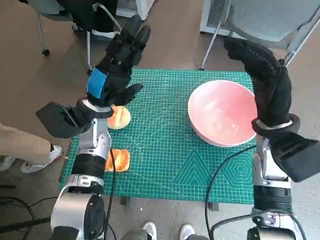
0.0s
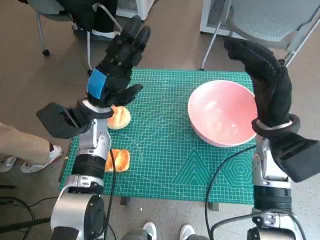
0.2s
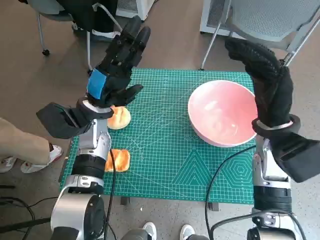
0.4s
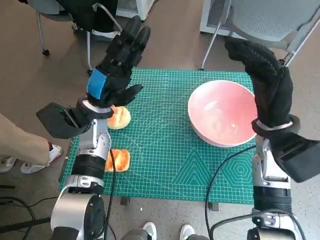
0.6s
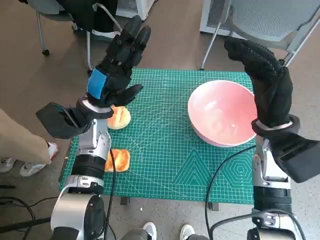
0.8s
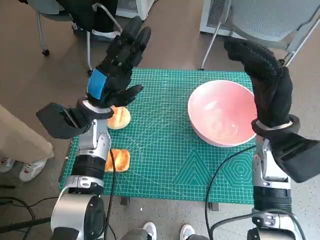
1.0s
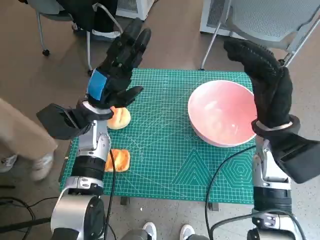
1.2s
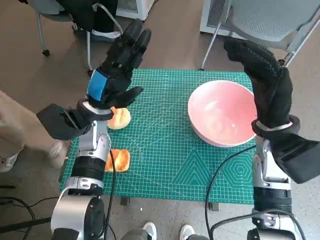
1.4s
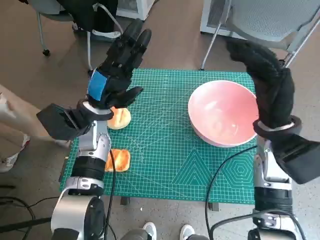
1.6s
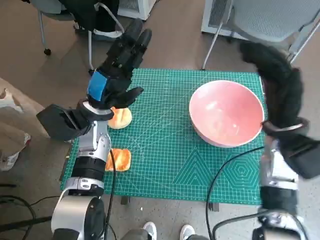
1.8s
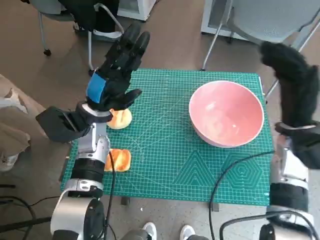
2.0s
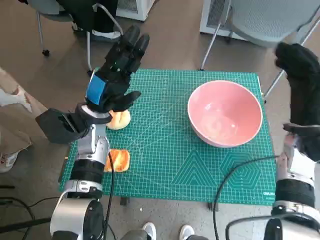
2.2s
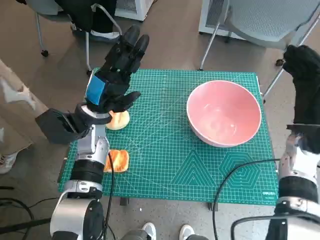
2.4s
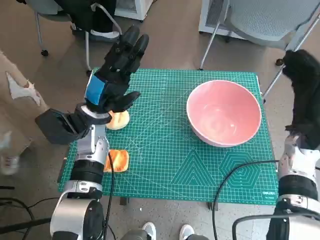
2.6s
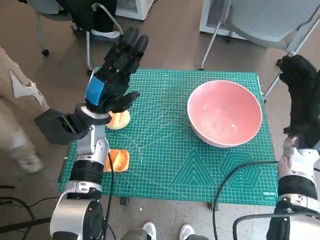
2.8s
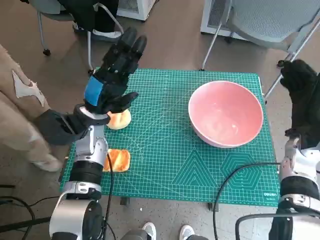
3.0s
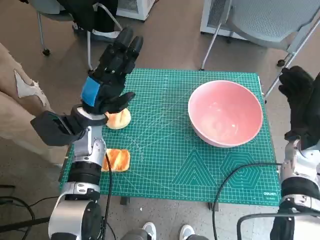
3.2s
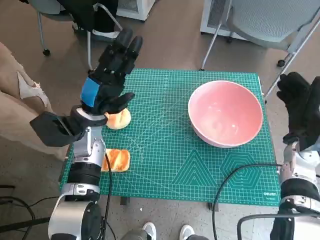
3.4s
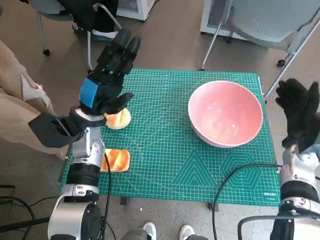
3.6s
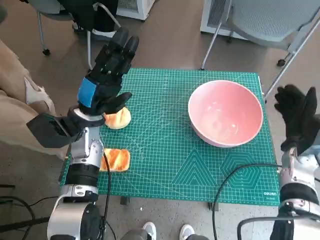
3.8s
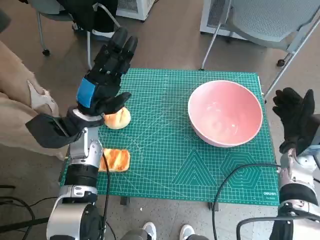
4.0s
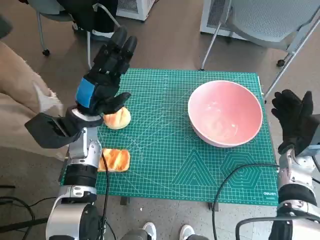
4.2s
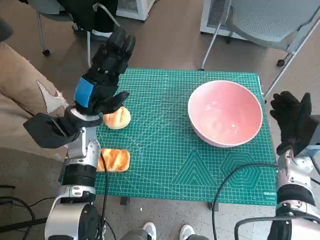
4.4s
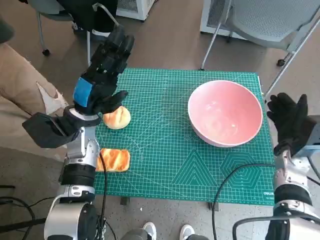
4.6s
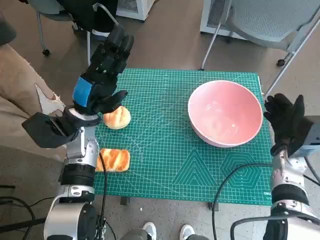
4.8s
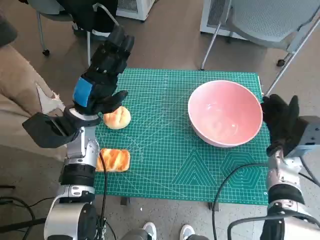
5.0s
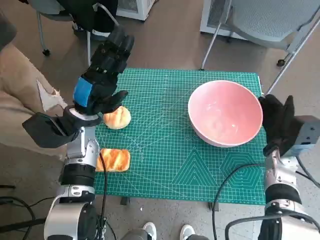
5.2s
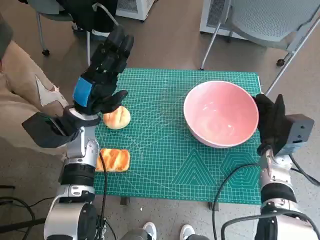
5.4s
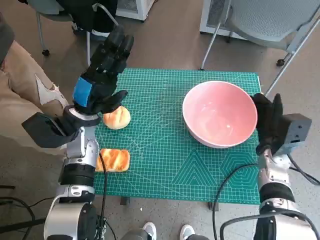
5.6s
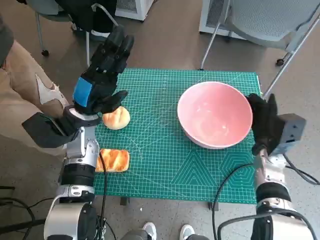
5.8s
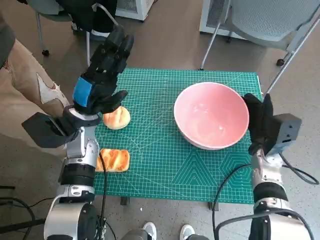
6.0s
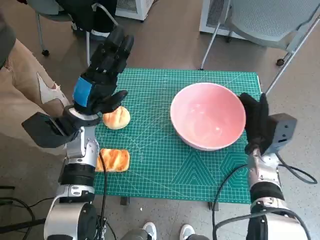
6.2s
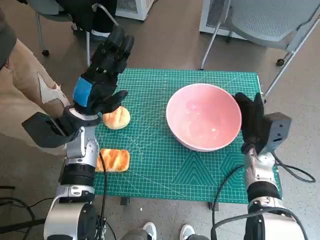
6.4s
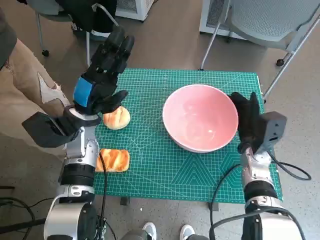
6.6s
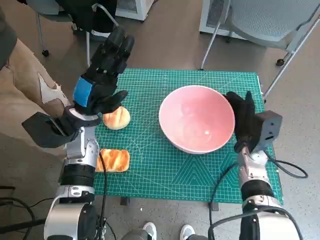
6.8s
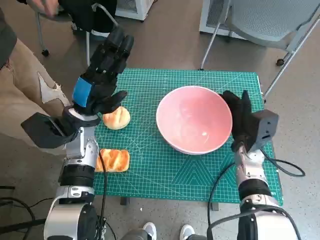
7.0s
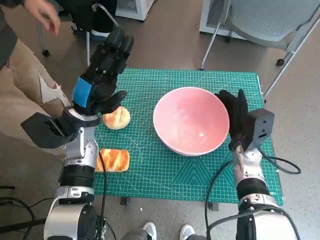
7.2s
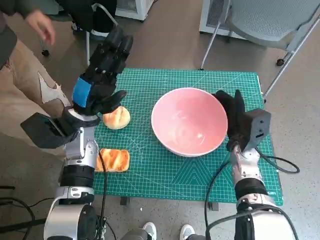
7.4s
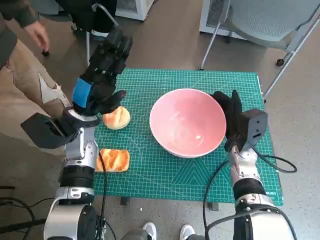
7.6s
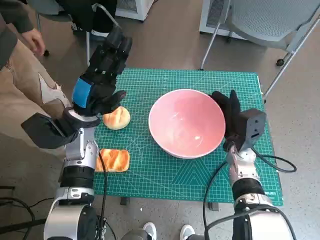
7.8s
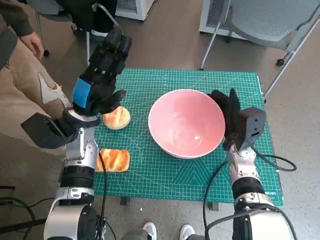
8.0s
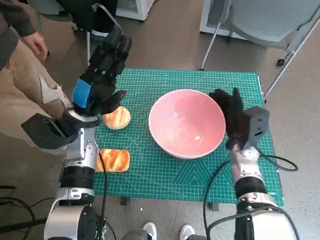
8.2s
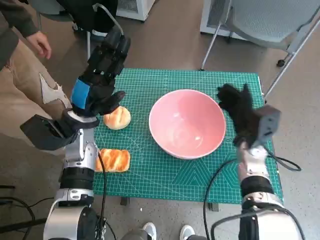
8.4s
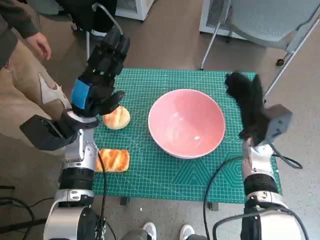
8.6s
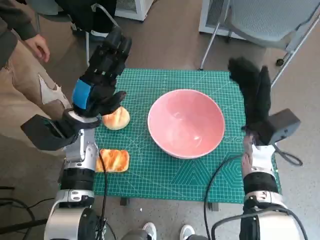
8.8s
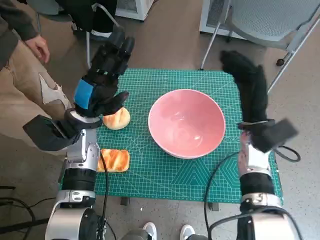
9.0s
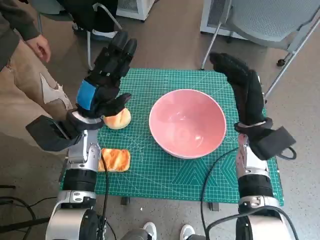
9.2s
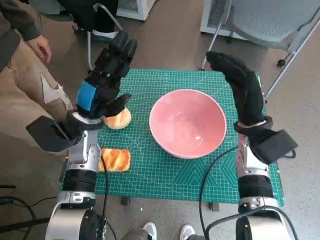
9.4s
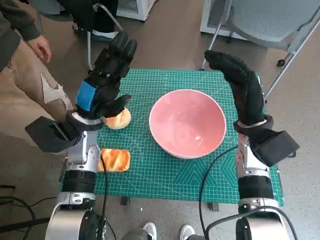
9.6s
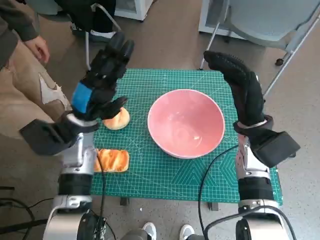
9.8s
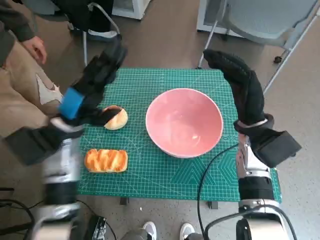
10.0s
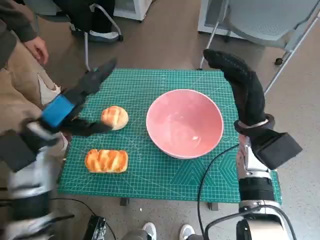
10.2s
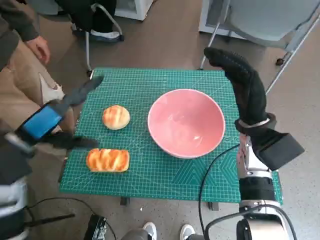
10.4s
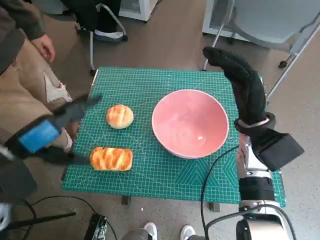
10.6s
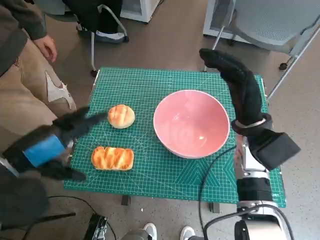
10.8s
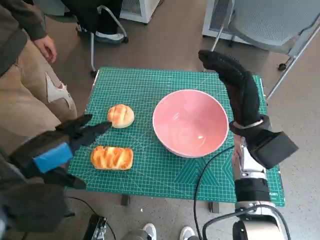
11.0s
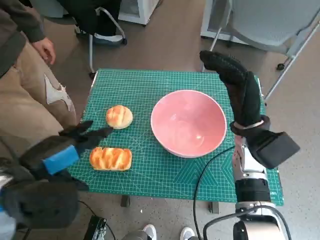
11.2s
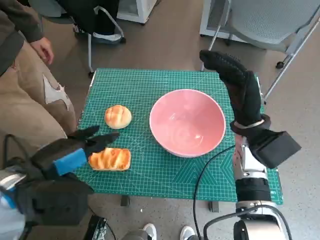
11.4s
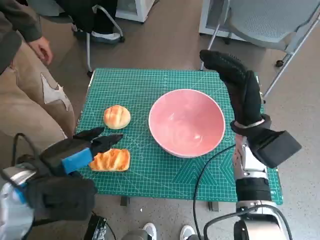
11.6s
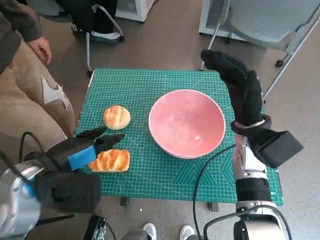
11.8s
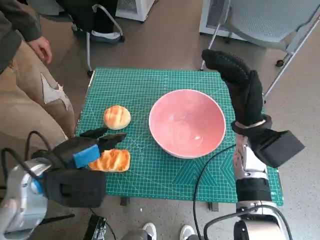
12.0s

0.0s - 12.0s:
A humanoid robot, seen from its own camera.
Step, 0.0s - 8.2s: Move the pink bowl to the center of table with right hand.
1.6s - 3.0s: The right hand travels to the right and downward by about 10 cm.
4.4s - 6.0s: The right hand travels to the left by about 5 cm.
6.0s - 7.6s: The right hand is displaced to the left by approximately 5 cm.
7.6s - 9.0s: The right hand moves upward, some 5 cm.
9.0s - 10.4s: The left hand moves backward and to the left, some 10 cm.
10.4s - 12.0s: The left hand goes roughly 5 cm to the right.

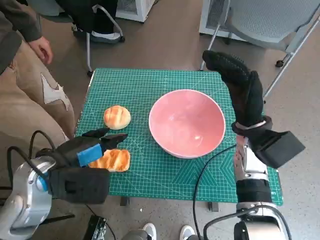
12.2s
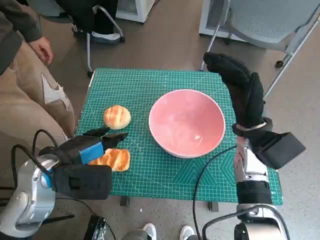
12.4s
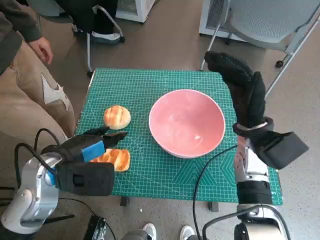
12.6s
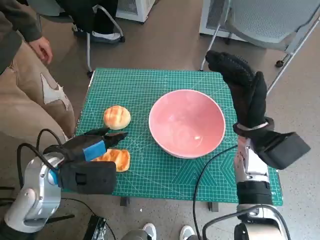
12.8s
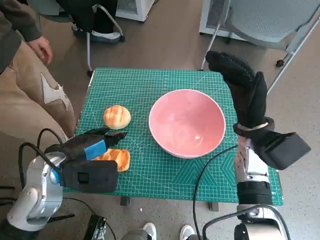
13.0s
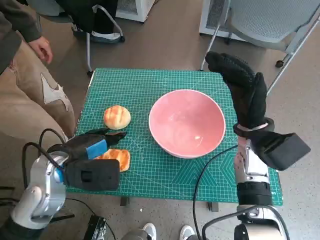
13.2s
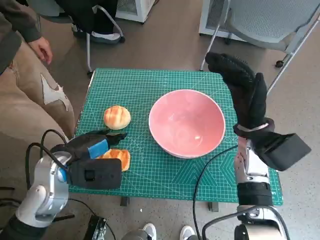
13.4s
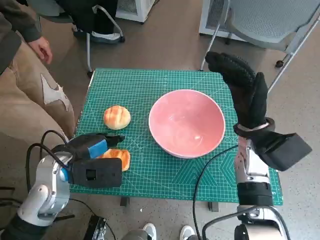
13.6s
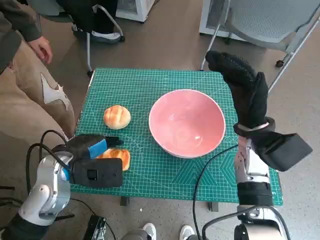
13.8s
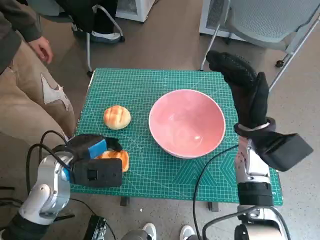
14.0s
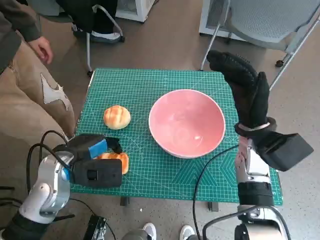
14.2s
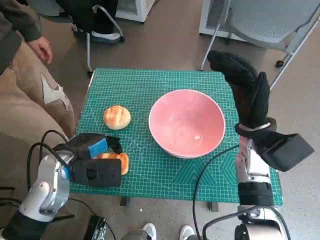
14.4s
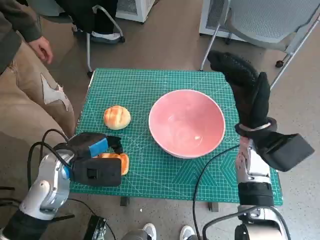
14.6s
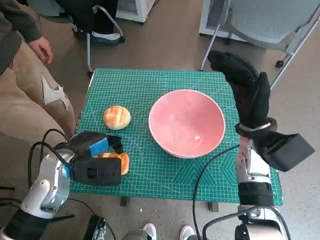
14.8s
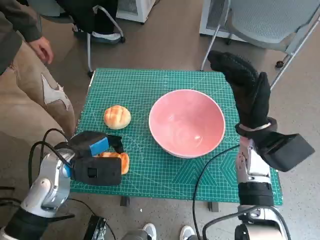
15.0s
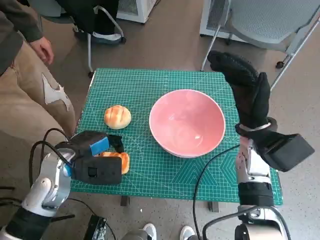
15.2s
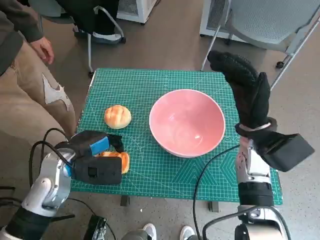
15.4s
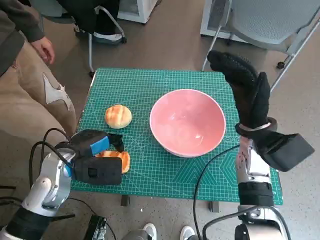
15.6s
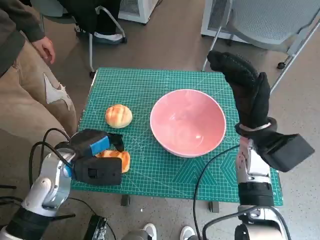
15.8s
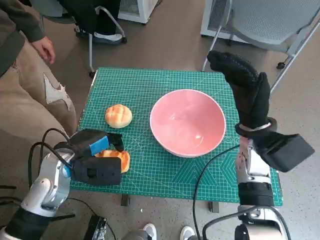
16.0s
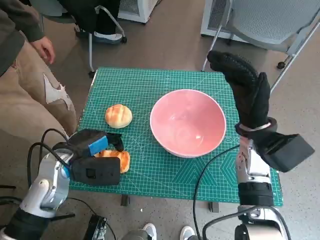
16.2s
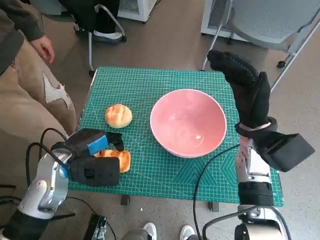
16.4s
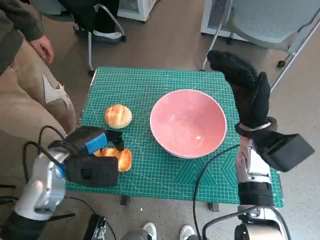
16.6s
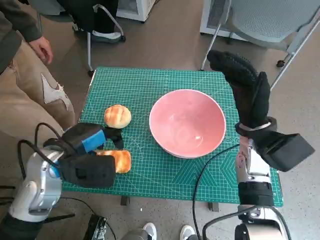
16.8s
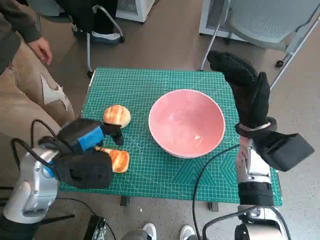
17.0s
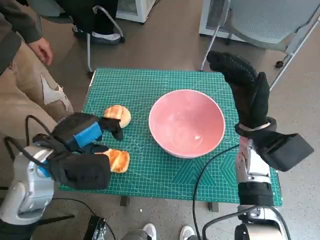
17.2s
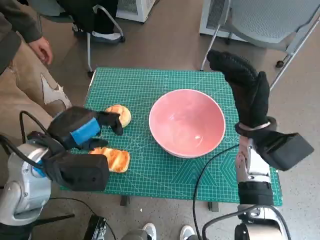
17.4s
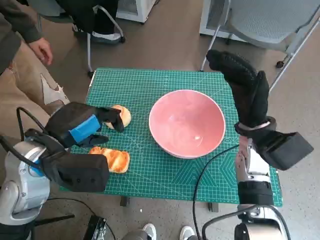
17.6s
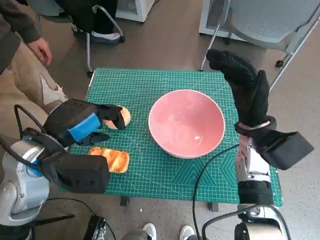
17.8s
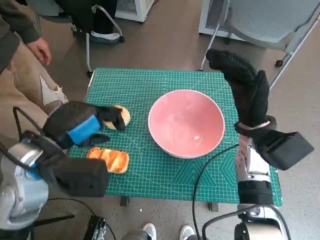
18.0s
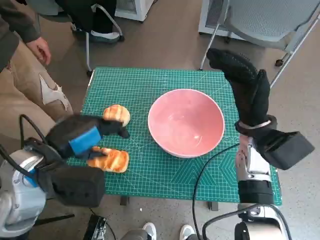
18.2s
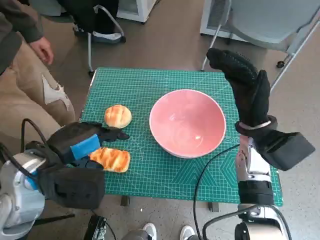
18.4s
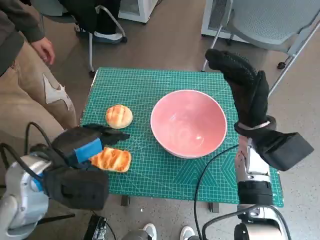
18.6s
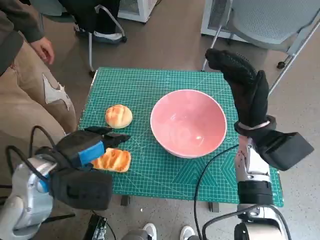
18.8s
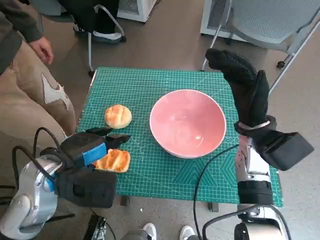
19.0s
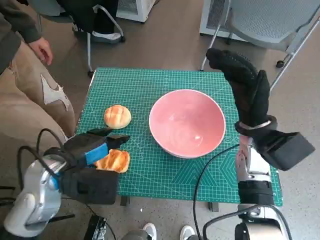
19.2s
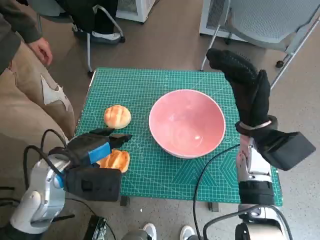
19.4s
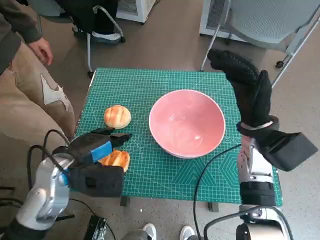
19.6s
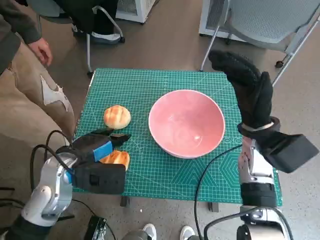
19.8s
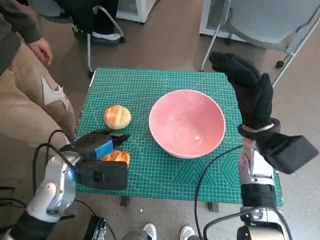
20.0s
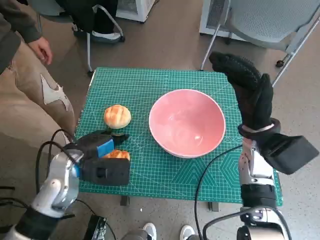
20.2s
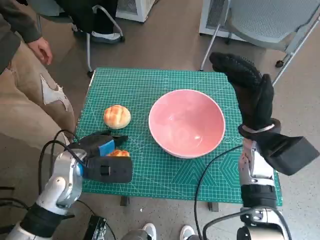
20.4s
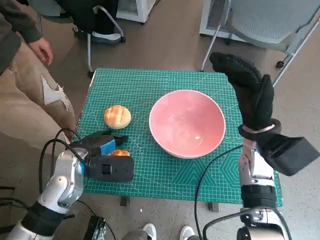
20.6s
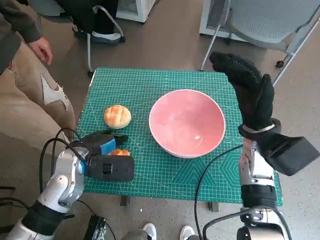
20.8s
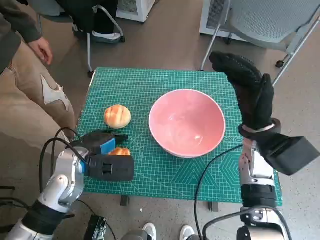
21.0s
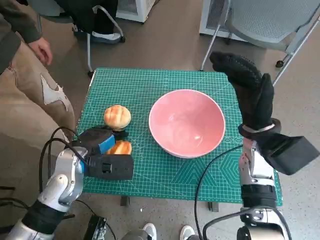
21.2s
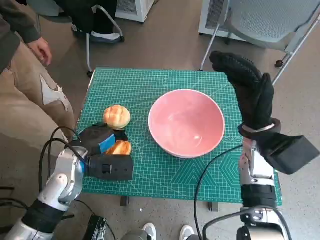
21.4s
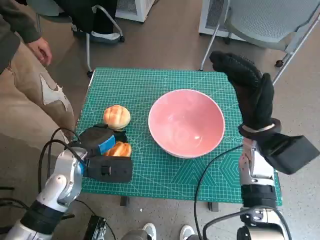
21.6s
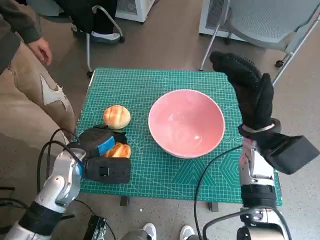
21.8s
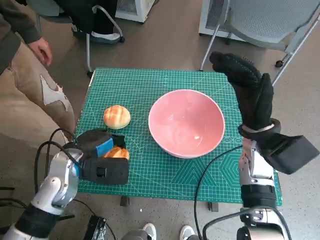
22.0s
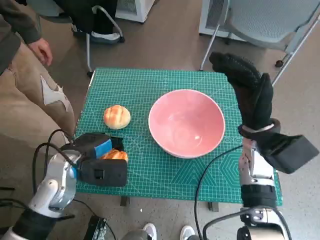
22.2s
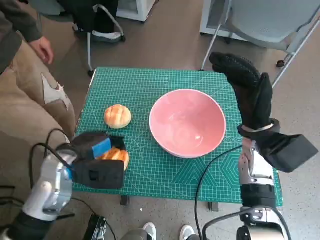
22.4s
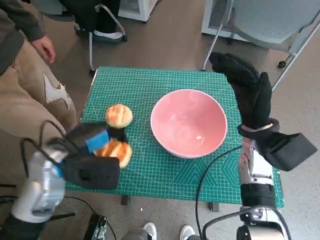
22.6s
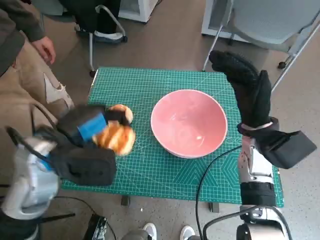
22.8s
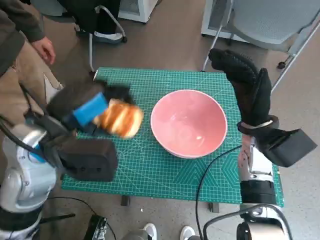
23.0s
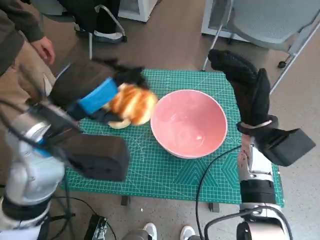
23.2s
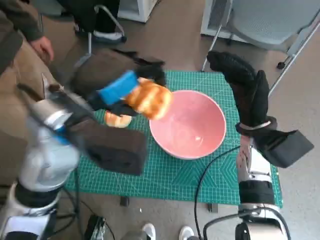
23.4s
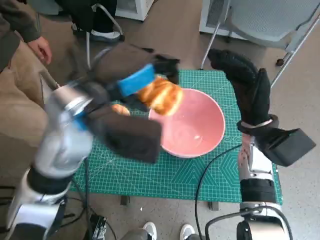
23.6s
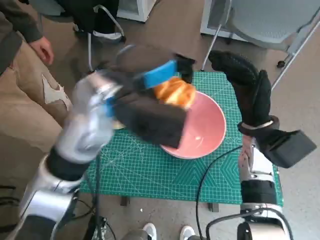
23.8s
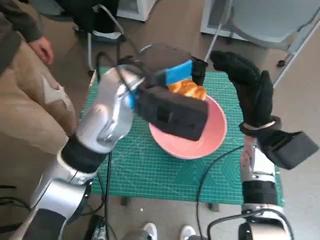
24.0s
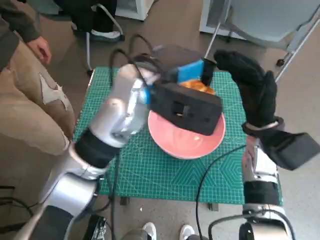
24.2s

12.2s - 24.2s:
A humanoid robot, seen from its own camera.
Step, 12.2s - 21.2s: Grasp the long bread with left hand.
12.2s - 15.2s: The hands stay close to where they were, moving slightly.
15.2s - 16.6s: The hands make only small movements.
16.6s - 18.2s: The left hand heads upward, covering approximately 5 cm.
18.2s - 19.8s: The left hand heads downward, covering about 5 cm.
19.8s - 22.6s: The hands move only a little.
22.6s - 24.2s: The left hand moves to the right, upward and forward, approximately 20 cm.
